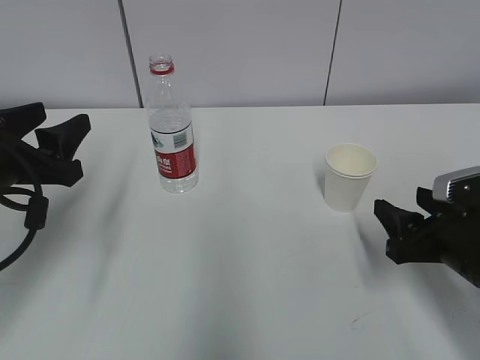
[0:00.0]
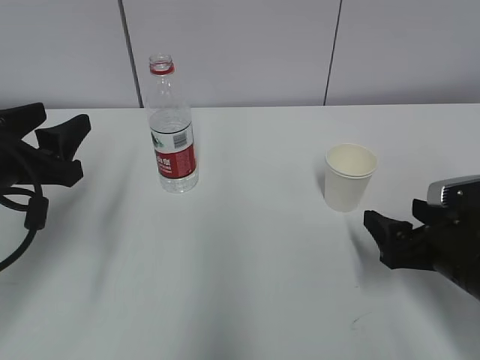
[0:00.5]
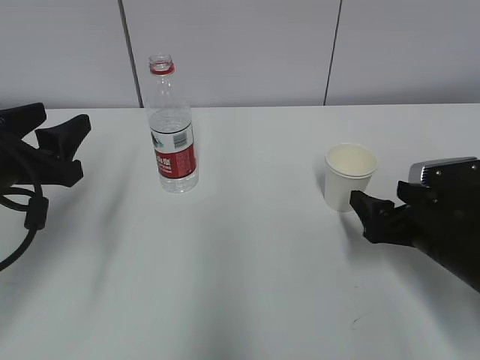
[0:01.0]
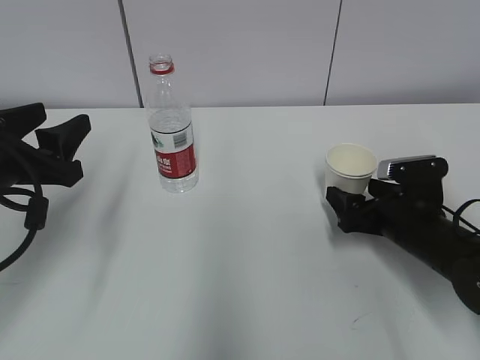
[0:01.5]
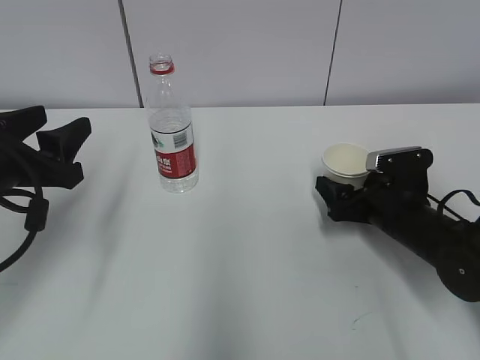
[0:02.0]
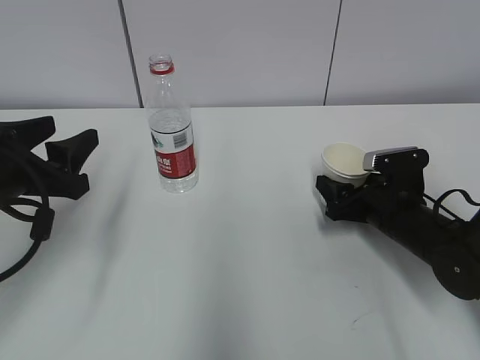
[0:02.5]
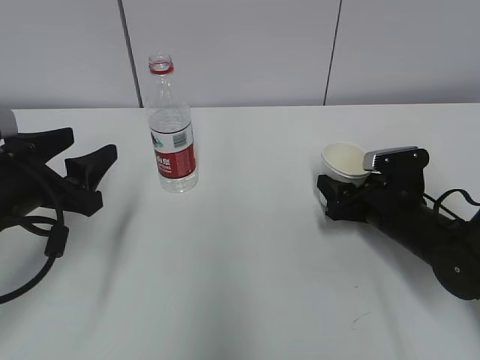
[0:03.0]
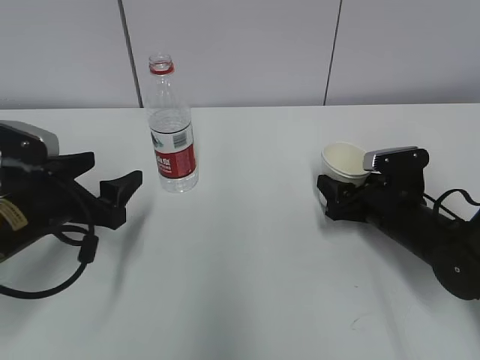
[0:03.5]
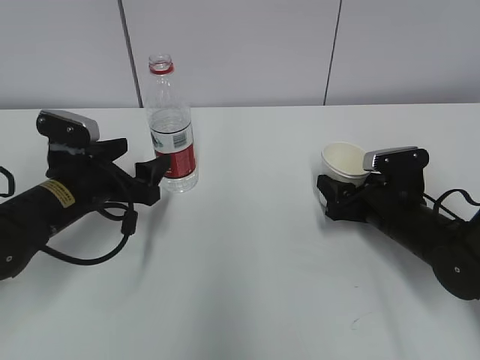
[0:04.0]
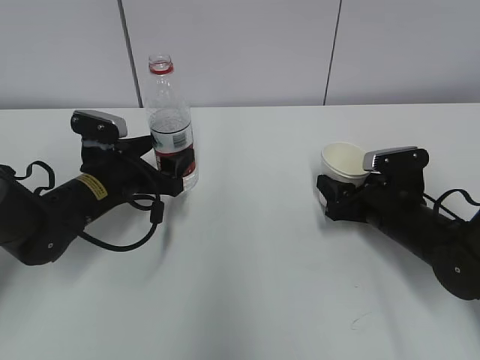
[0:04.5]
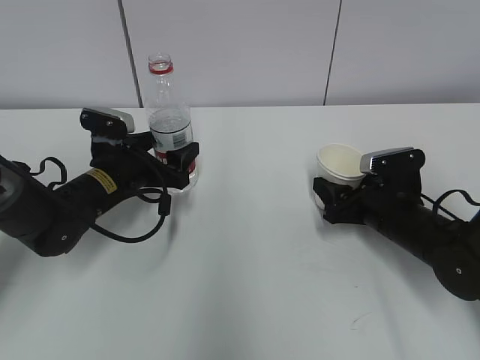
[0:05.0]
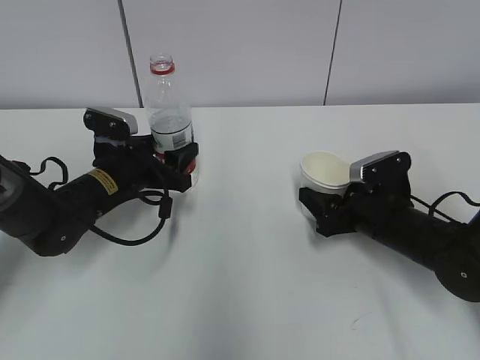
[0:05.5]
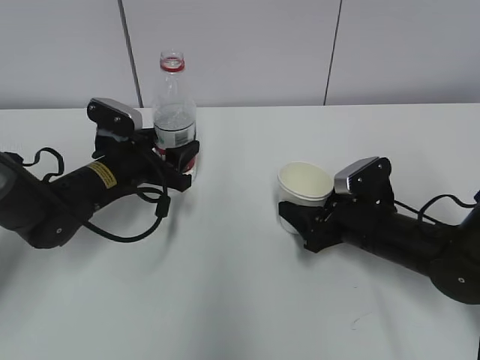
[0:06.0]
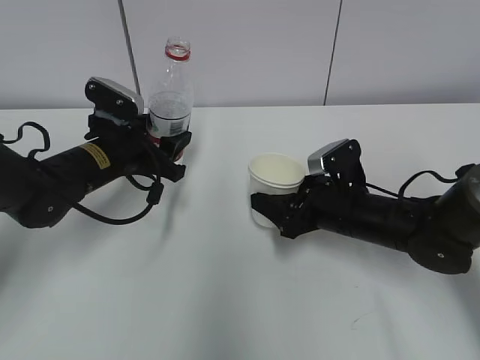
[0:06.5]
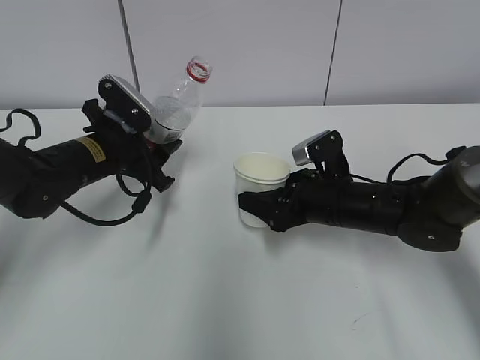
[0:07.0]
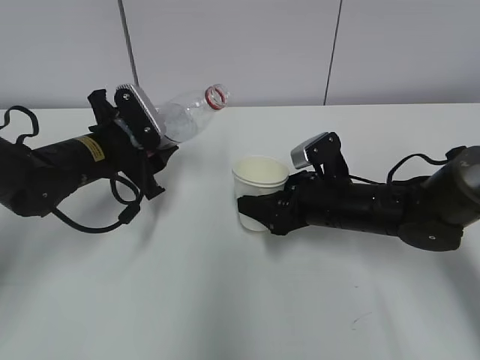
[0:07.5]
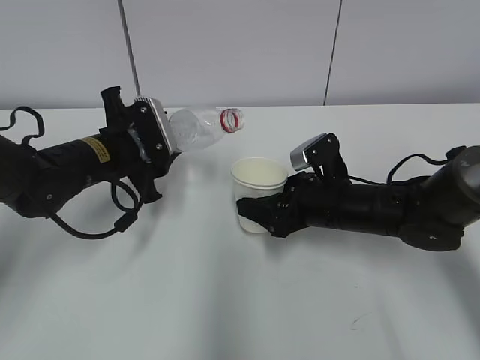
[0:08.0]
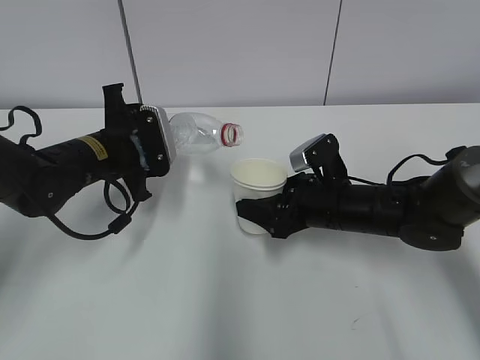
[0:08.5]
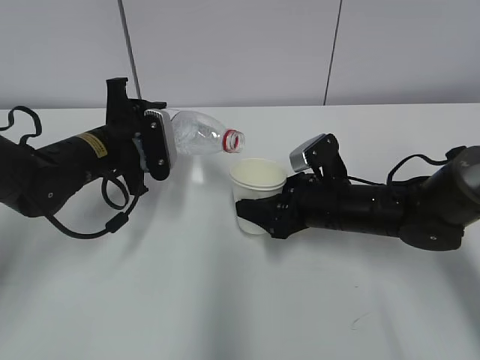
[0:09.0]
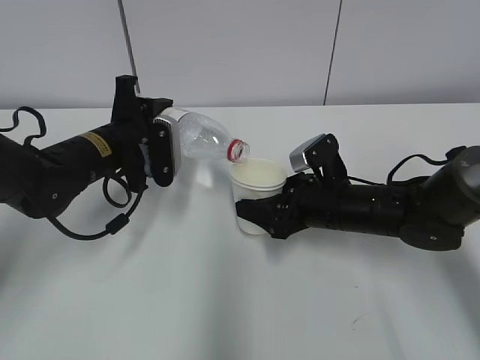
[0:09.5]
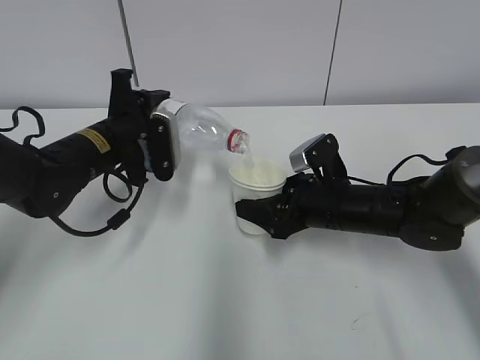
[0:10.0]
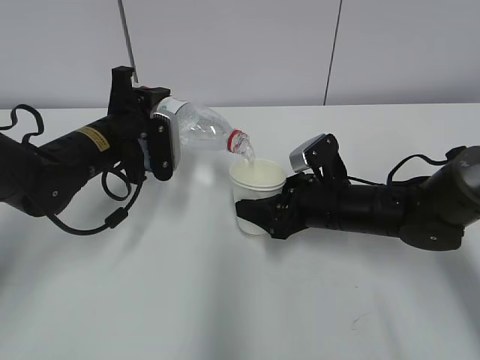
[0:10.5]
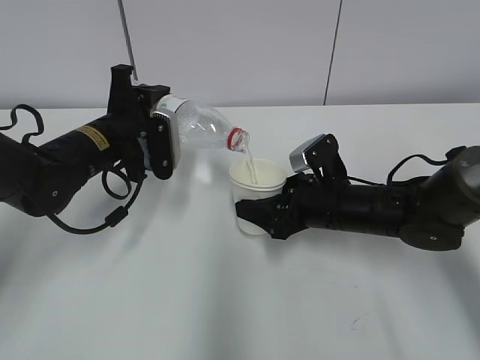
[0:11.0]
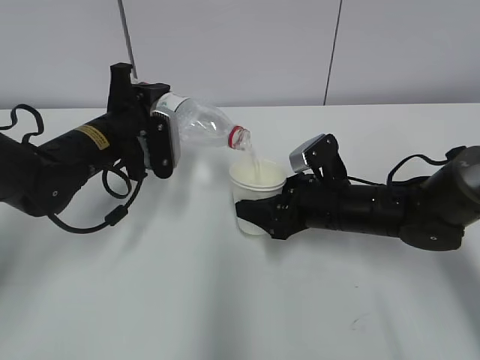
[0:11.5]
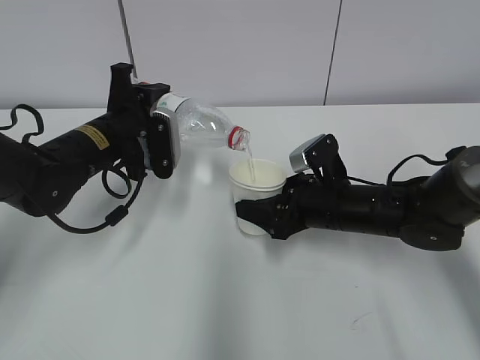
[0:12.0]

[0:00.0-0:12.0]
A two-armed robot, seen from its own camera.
Step, 0:00.0 to 0:03.5: Grab the water bottle with the left hand.
Step, 0:04.5 to 0:07.0: Lift the paper cup with the right hand.
Step, 0:07.5 to 0:11.0: Pour water with the left hand.
0:00.0 to 0:02.0: The right gripper goes about 10 cm forward and downward, and opens up.
0:02.0 to 0:04.0: The left gripper moves downward and forward, approximately 10 cm, and opens its fingers, while the right gripper closes.
0:04.0 to 0:06.0: The left gripper shifts by some 5 cm, and closes its fingers.
0:06.0 to 0:08.0: The right gripper moves roughly 5 cm.
0:10.0 to 0:12.0: Both grippers stay put.

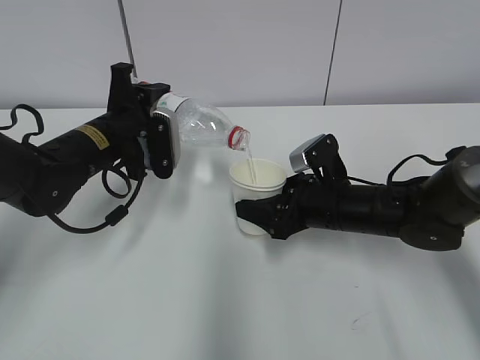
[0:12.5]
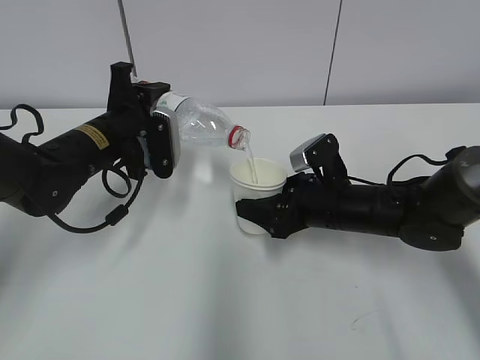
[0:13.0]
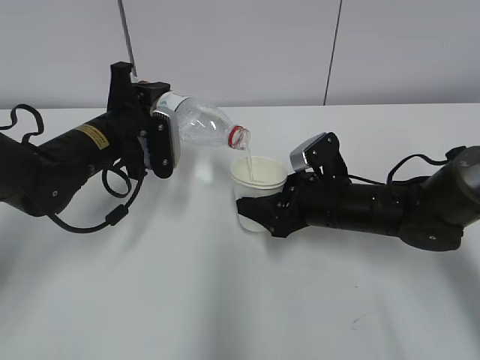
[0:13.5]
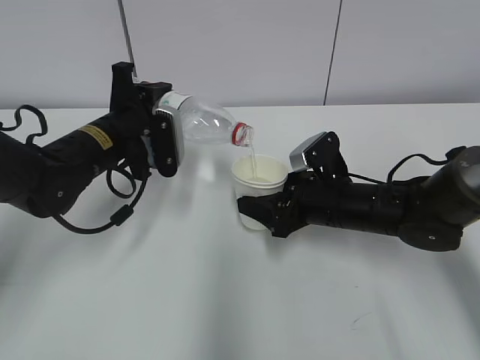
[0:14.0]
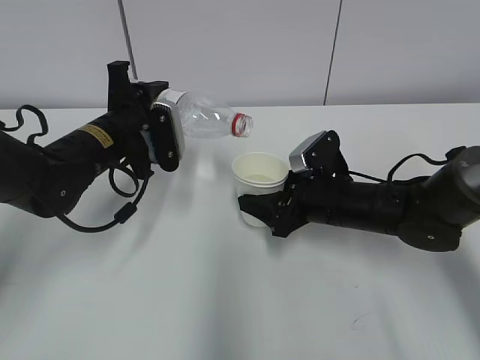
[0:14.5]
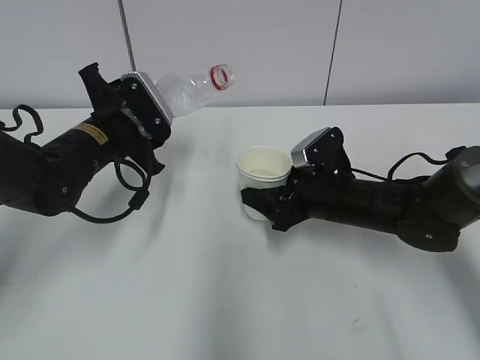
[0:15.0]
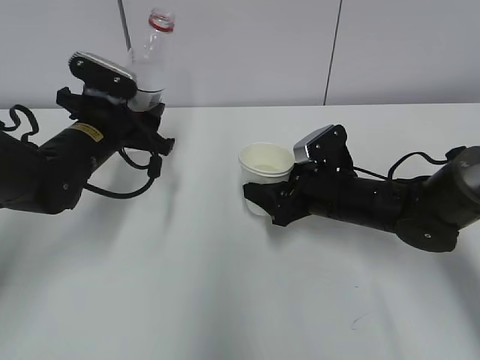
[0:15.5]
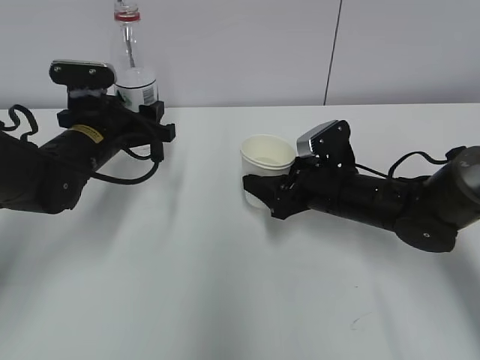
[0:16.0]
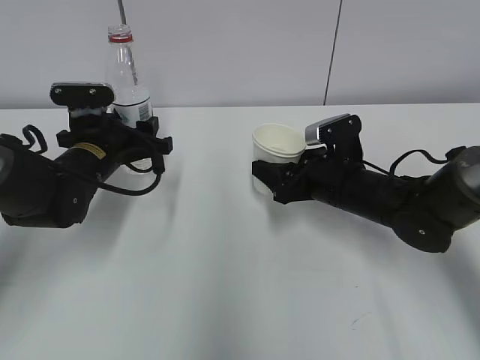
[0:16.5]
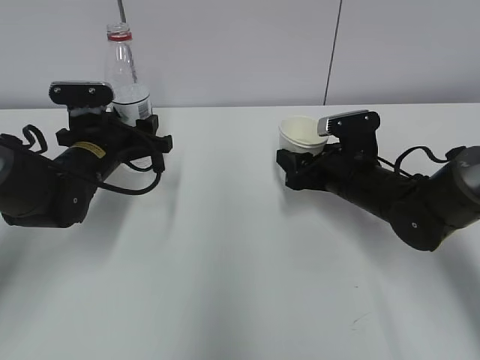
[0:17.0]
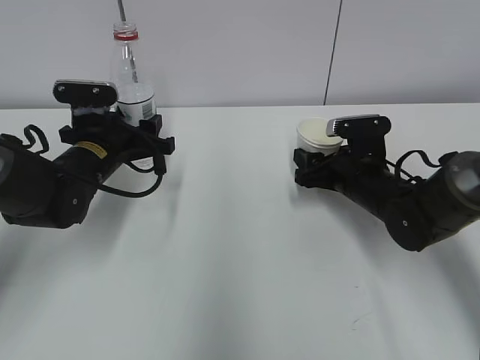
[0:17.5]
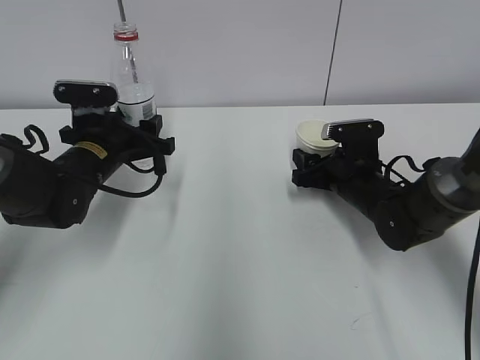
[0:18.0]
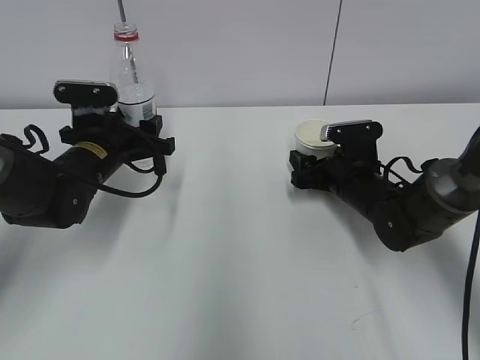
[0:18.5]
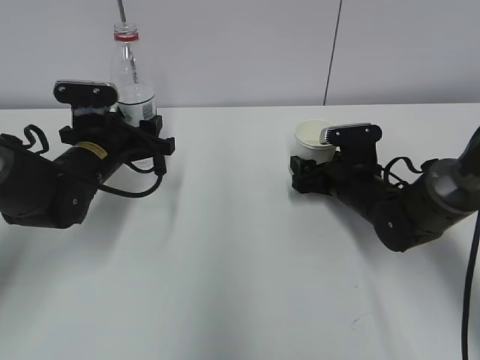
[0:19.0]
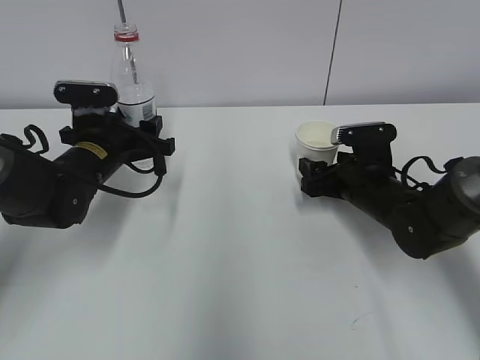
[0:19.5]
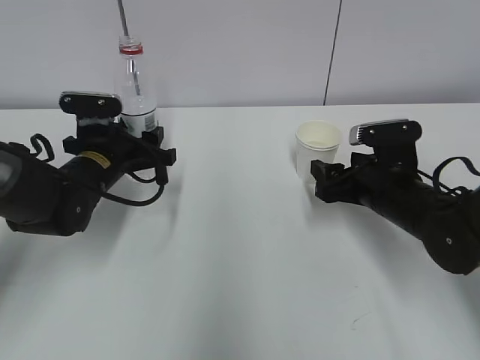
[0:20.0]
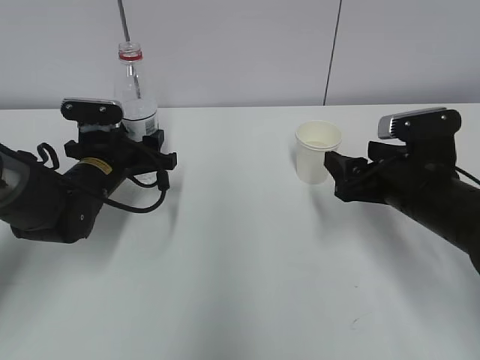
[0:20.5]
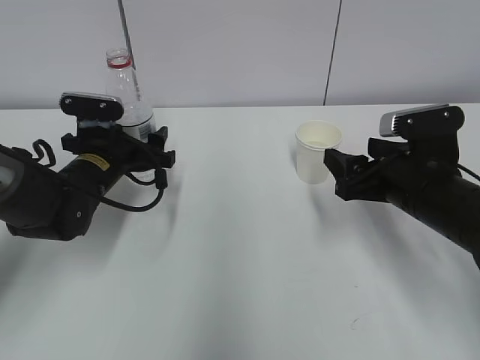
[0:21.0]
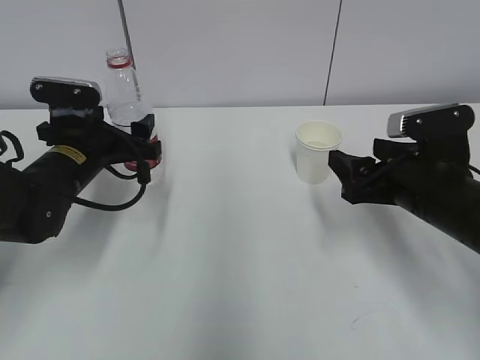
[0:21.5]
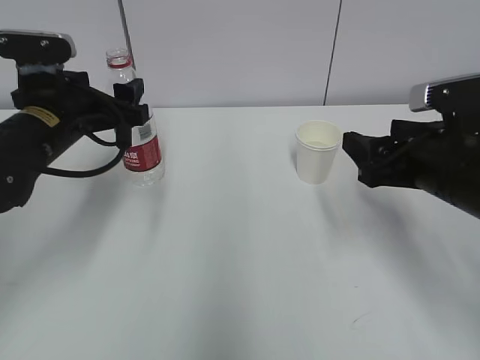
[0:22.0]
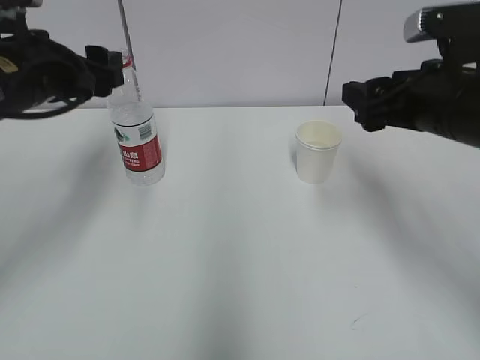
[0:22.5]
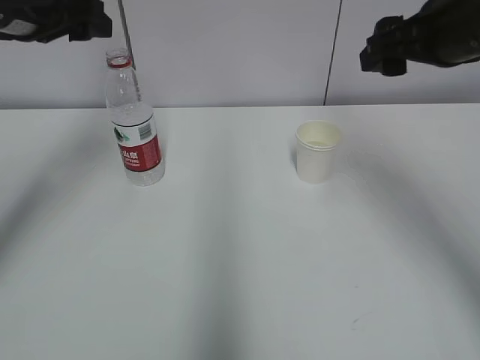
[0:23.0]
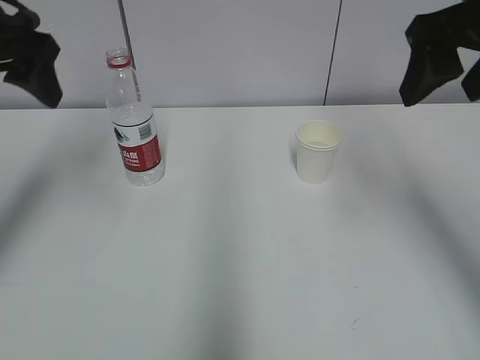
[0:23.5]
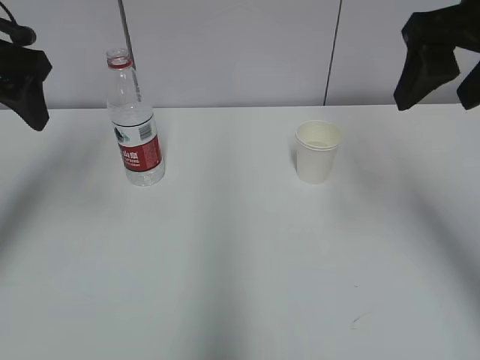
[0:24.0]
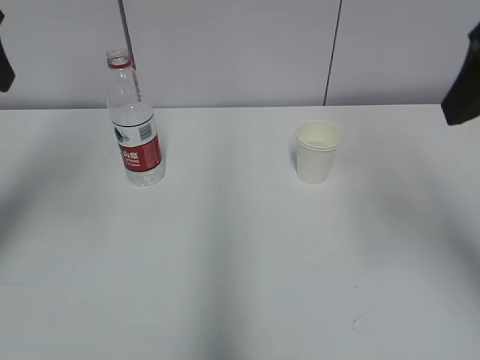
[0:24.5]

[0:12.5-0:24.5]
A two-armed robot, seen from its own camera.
Step, 0:13.0 to 0:15.0: Place the paper cup with the right hand.
Step, 0:15.5 to 0:16.5: Place the water bottle with the left hand.
0:12.5 to 0:14.5: There are only small adjustments of the grippers.
0:16.5 to 0:18.5: The right gripper shifts by some 5 cm, and opens its fingers.
0:18.5 to 0:20.5: The right gripper is displaced backward and upward by about 15 cm.
0:20.5 to 0:22.5: Both grippers move upward, some 15 cm. The left gripper opens up.
0:22.5 to 0:24.5: The two grippers go approximately 15 cm upward and backward.
